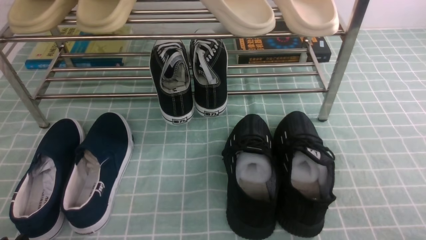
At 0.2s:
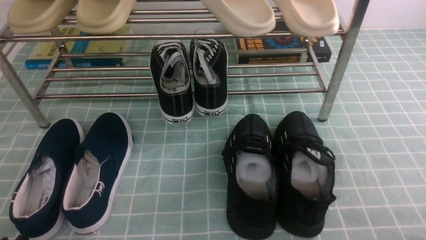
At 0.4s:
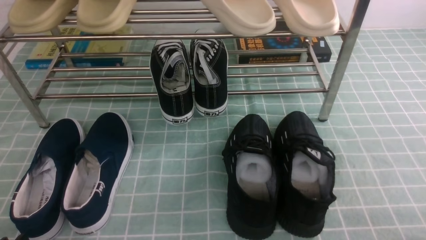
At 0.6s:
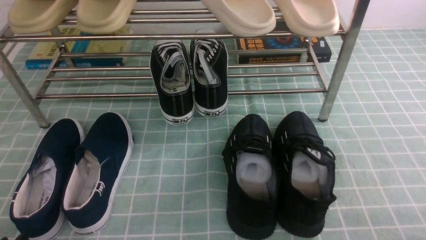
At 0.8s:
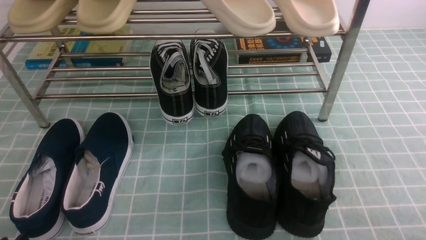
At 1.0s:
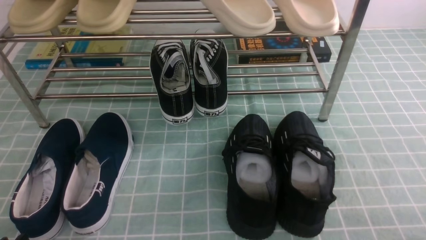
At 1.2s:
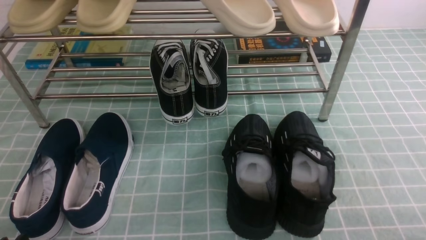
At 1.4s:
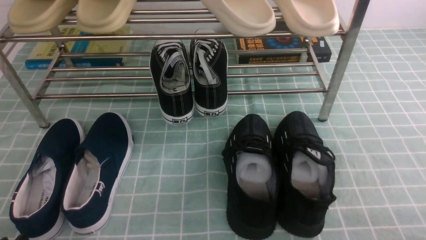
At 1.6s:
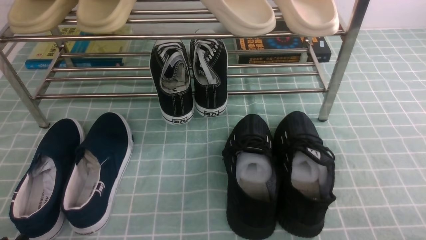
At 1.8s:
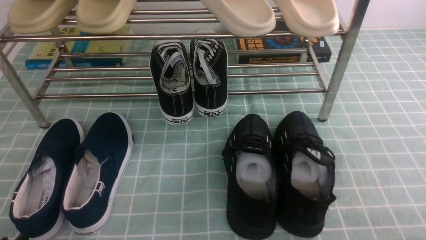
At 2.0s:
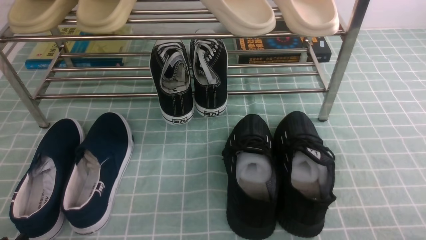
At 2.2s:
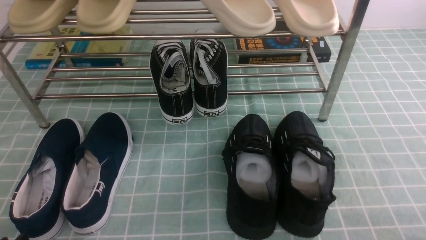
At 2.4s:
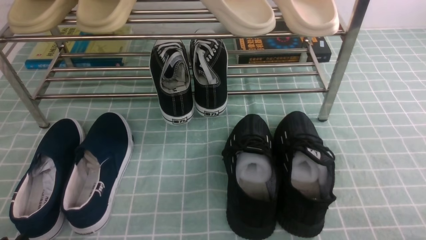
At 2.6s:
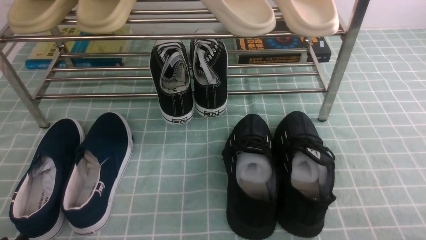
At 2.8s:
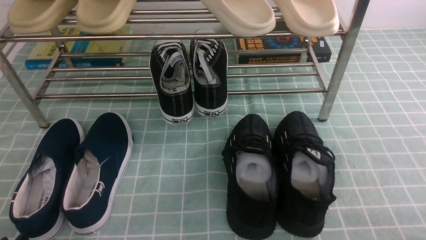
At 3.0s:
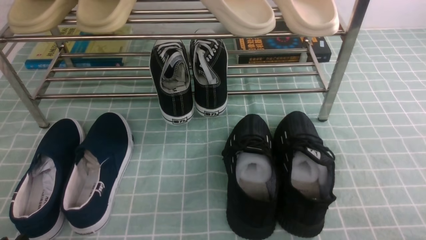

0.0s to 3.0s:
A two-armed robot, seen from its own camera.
1.6s to 3.0s: Neither gripper changes place.

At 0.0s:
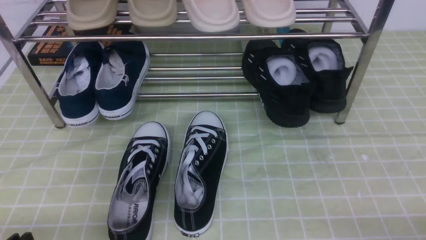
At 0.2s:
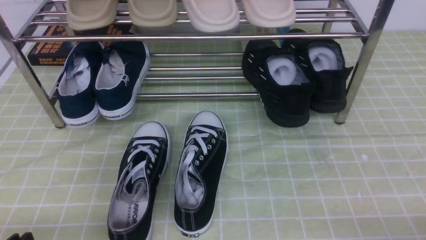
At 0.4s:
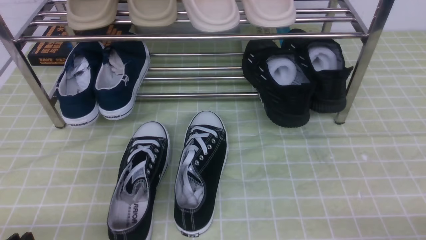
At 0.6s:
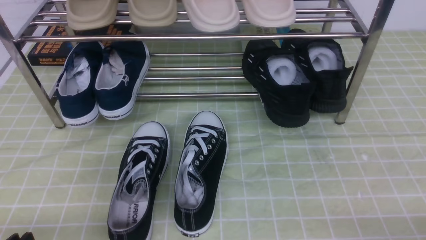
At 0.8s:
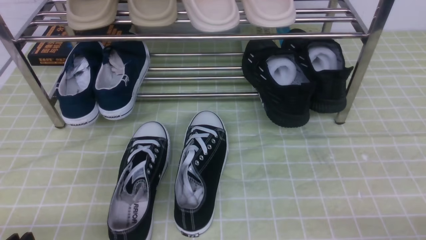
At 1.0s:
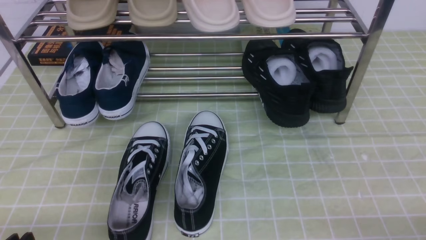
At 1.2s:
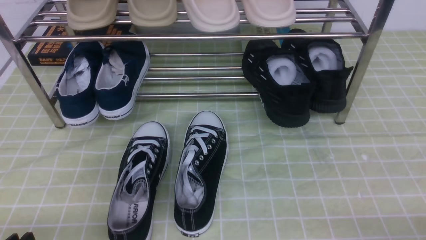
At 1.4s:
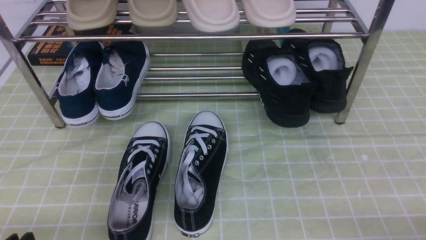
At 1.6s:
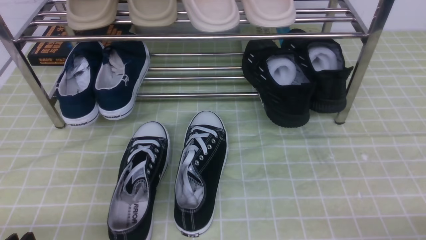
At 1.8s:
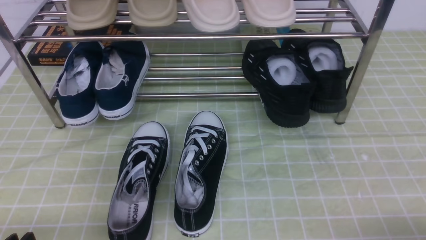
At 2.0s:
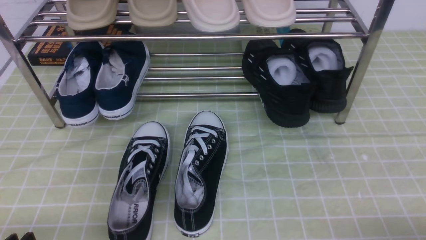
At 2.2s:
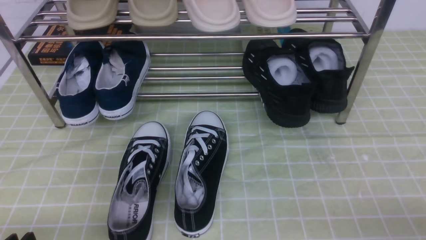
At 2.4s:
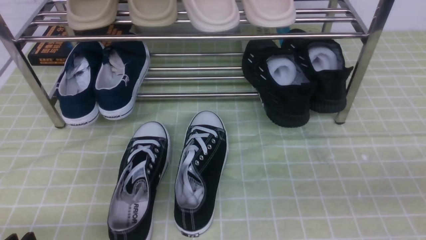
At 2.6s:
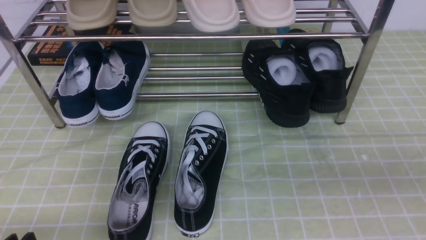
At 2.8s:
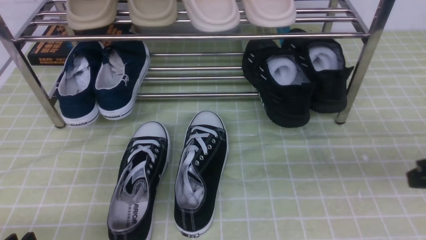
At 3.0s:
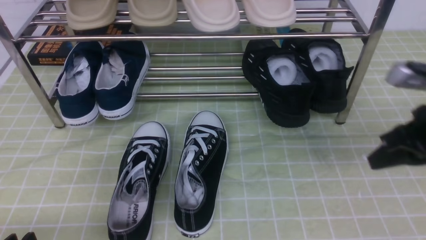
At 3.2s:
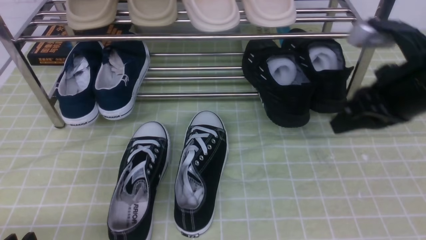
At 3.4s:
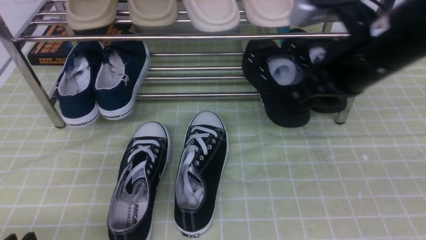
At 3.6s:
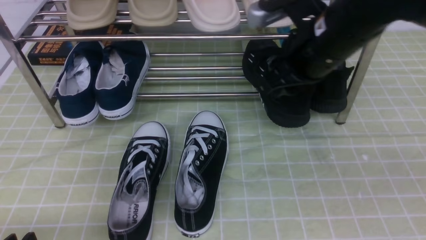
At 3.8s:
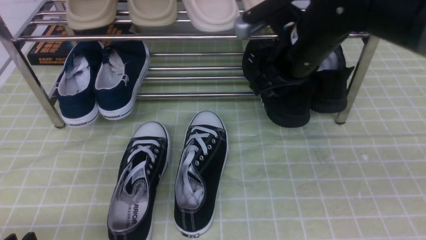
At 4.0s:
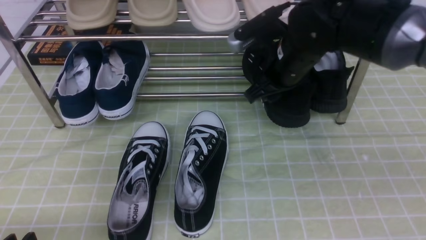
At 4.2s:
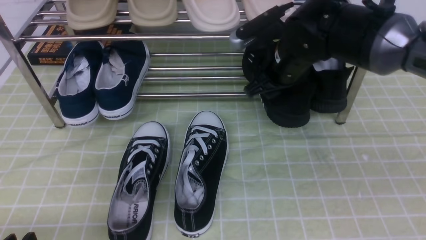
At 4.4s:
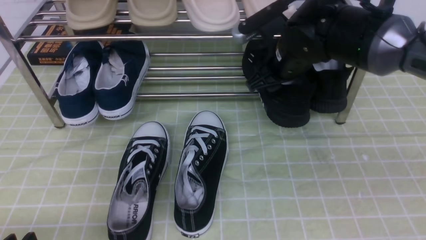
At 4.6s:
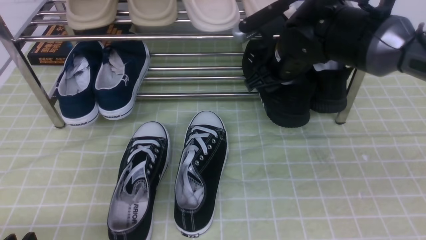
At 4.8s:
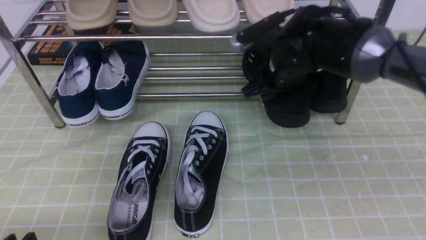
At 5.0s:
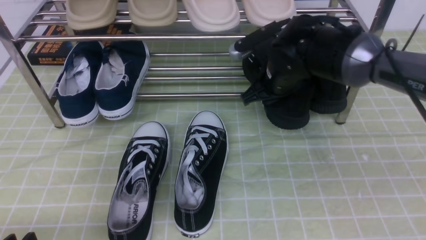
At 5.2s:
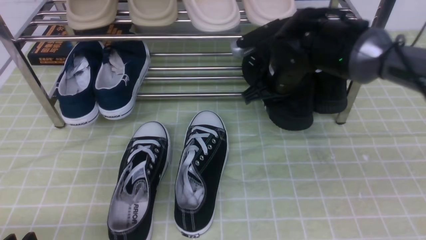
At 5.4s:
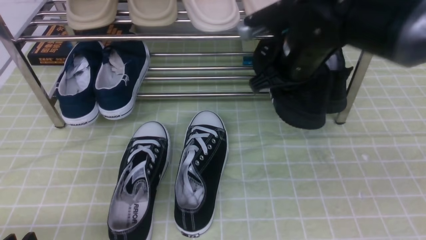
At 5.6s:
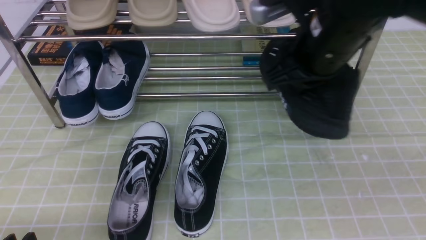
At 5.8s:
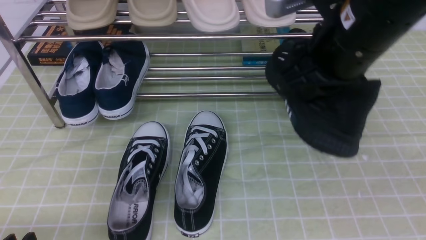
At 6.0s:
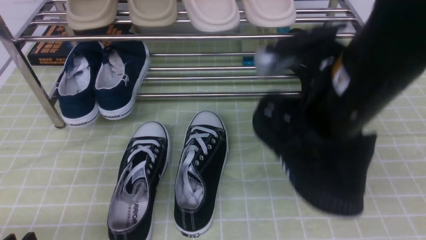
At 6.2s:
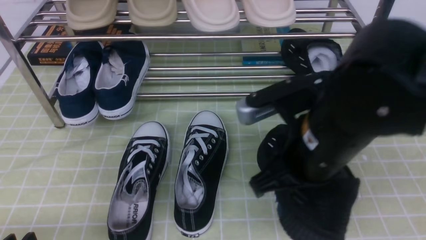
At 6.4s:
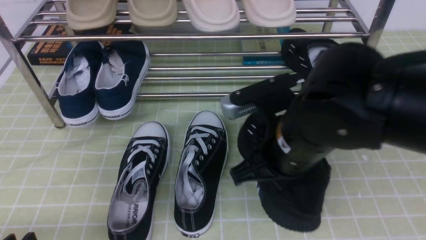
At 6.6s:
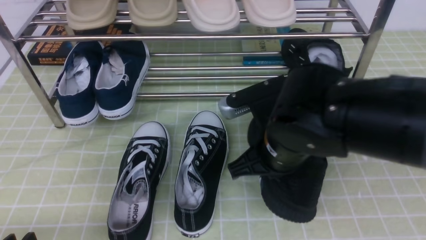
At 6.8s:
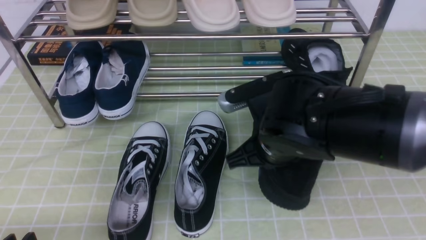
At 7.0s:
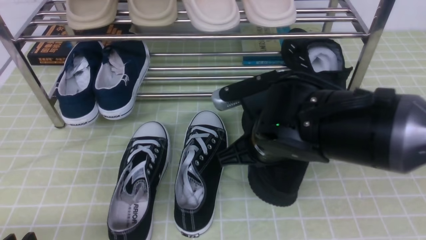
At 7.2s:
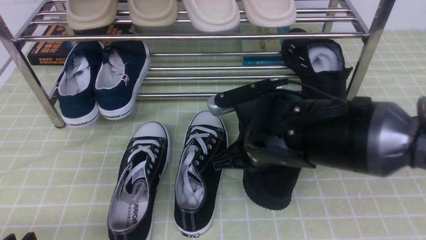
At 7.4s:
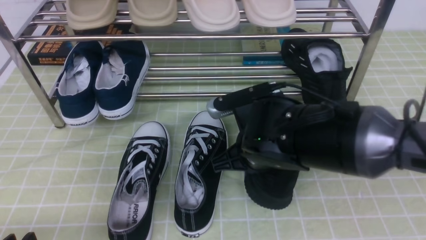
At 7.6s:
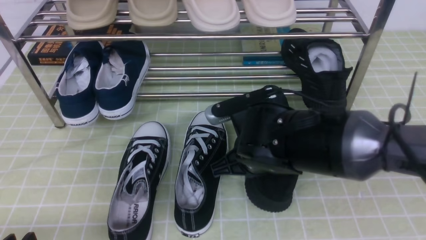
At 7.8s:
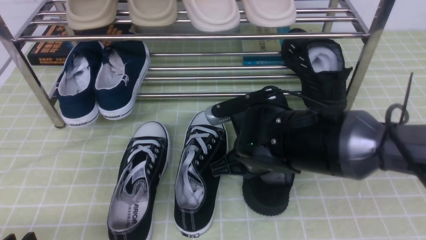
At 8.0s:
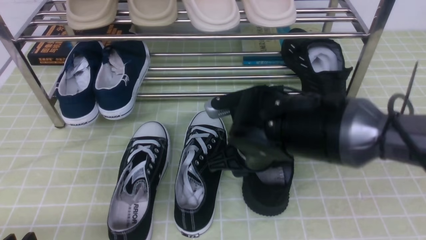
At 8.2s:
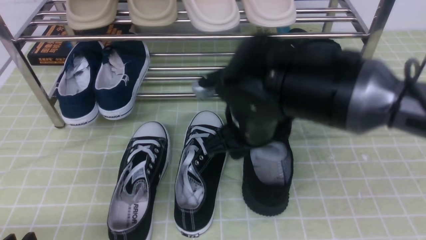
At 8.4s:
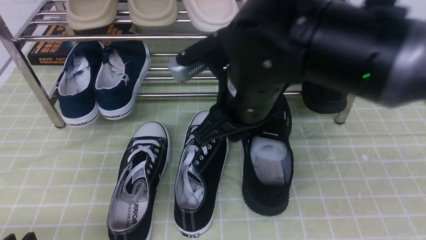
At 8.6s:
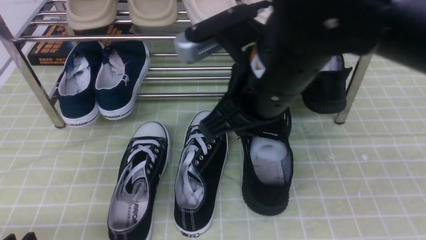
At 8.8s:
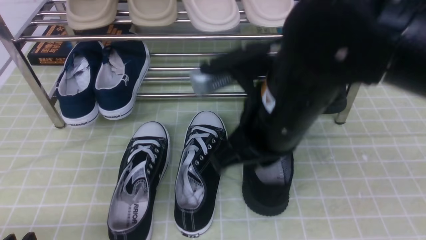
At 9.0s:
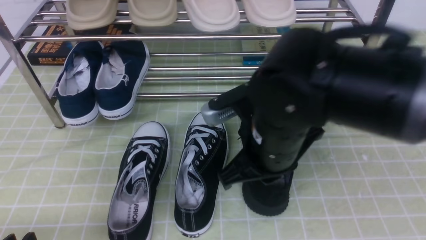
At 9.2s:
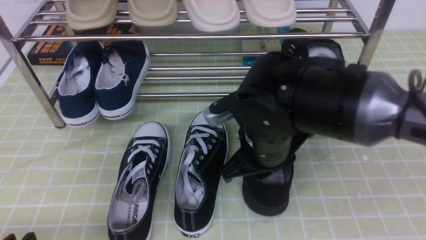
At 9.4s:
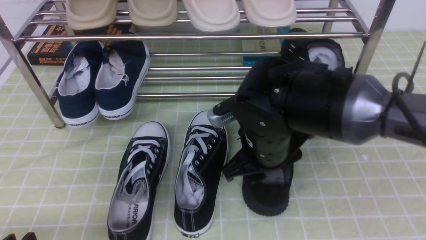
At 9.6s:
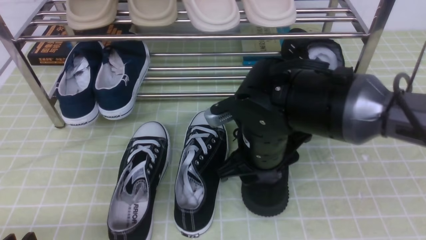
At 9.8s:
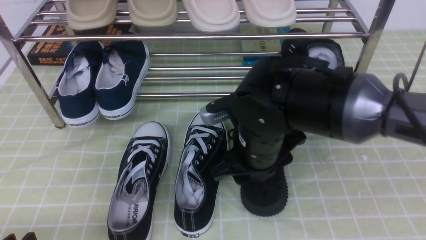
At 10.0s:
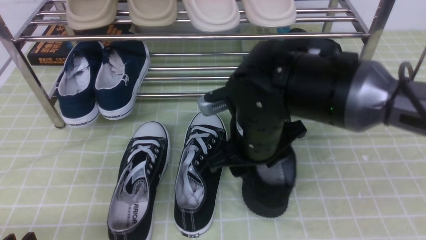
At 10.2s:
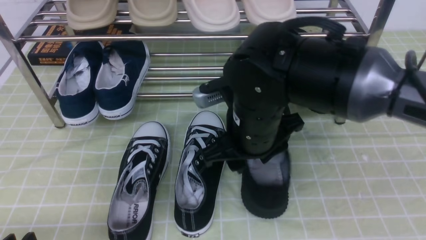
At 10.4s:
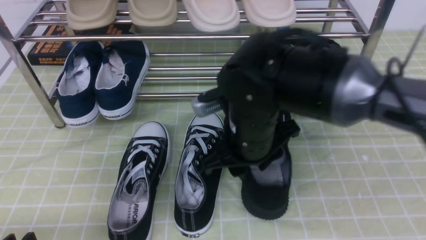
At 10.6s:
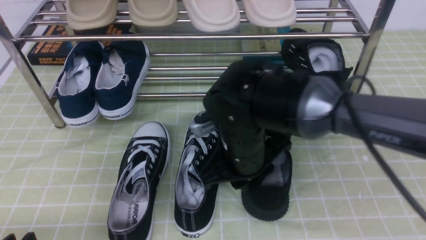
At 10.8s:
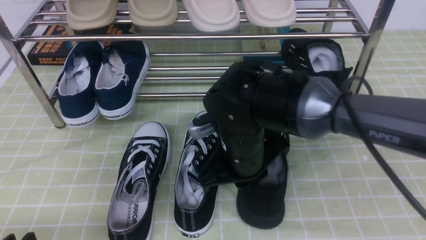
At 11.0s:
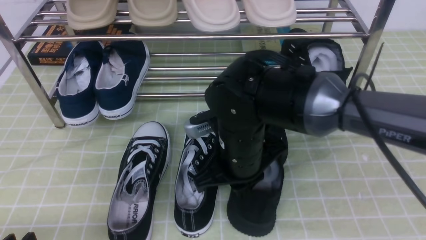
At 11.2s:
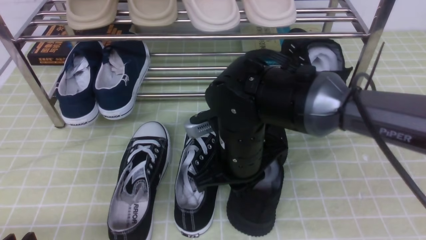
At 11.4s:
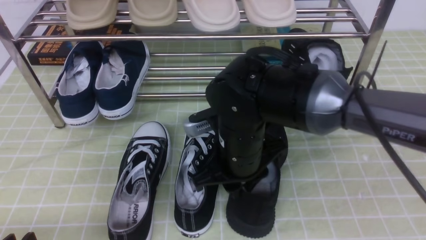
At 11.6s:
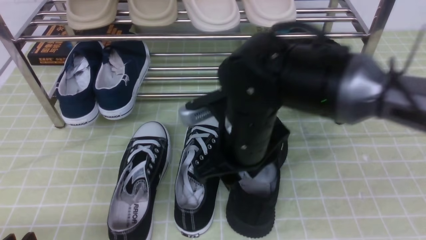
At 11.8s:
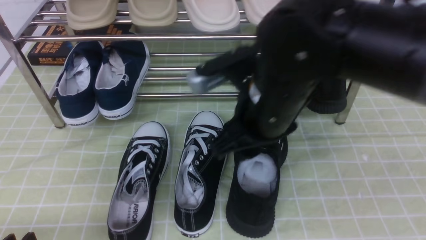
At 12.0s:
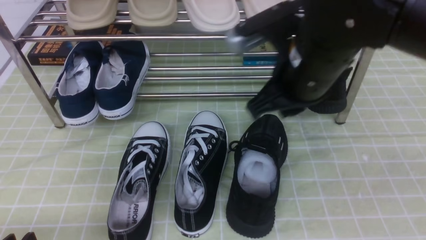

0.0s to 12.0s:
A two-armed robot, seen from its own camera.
Step, 0.0s to 5.0s: use the right arm to clamp a shoe on the right side of the shoe rack.
Step, 5.2s to 8.0s: use the right arm to take out the clamped shoe from the shoe rack and put it down.
1.6s to 3.0s: The right gripper travels forward and upward by about 25 cm, and closes up.
3.0s to 4.4s: The right gripper moves forward and to the left, roughly 20 cm, and opens.
4.4s to 6.0s: The right gripper moves backward, approximately 15 cm, and closes its fingers.
6.0s to 7.6s: The right gripper shifts some 15 cm downward and to the left.
7.6s to 9.0s: The right gripper travels upward by roughly 5 cm, and opens, then closes once more.
9.0s to 10.4s: The right gripper shifts by approximately 5 cm, and opens its fingers.
10.4s to 12.0s: The right gripper shifts approximately 10 cm upward and to the right, and closes up.

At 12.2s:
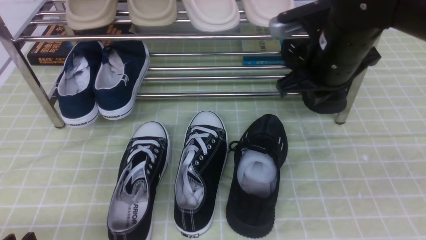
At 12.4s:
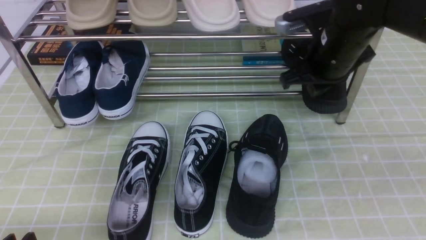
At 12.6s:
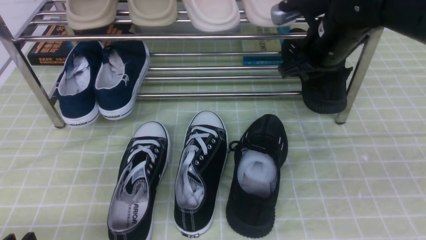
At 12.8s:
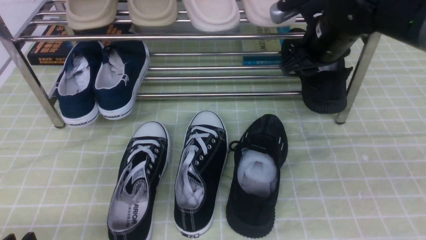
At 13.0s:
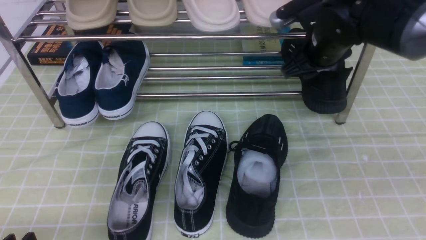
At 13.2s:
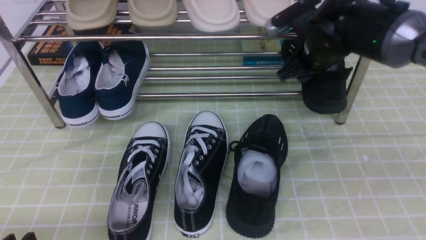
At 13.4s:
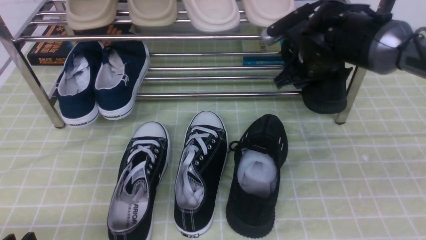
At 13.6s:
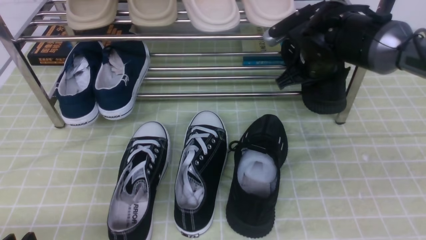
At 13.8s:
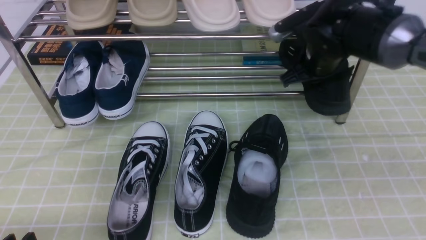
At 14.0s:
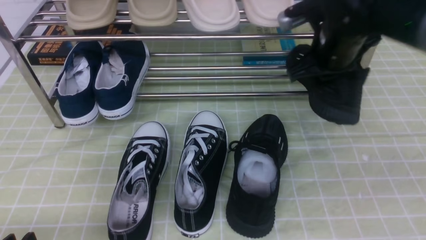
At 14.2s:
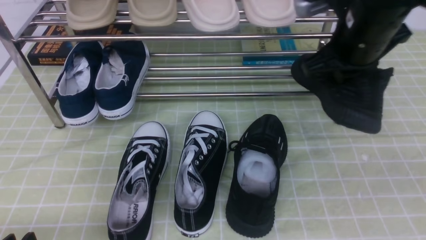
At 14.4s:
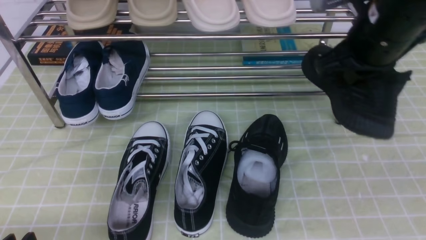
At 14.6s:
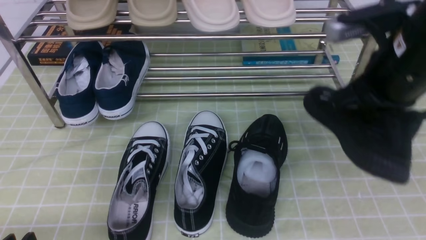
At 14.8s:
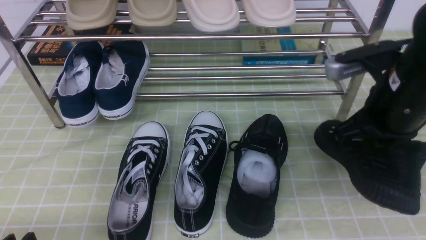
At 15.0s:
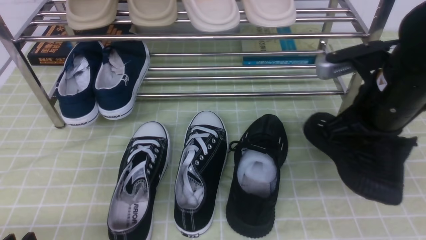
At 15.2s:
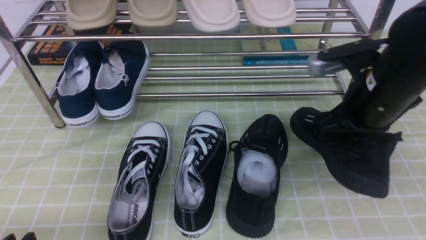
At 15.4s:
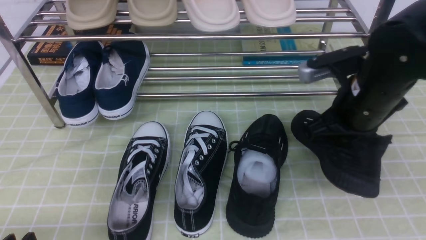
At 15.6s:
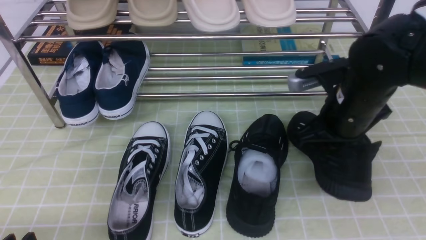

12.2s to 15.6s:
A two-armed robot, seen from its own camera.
12.2s to 13.8s: The right gripper shifts approximately 5 cm forward, and opens, then closes once more.
13.8s to 15.6s: The right gripper heads backward, covering roughly 10 cm.
